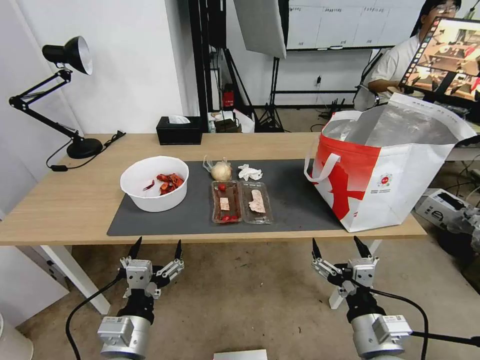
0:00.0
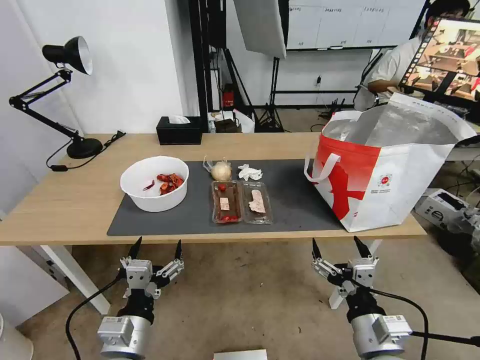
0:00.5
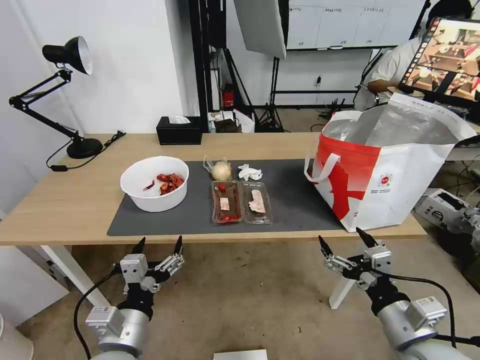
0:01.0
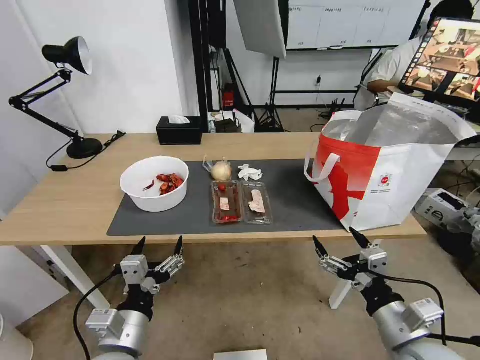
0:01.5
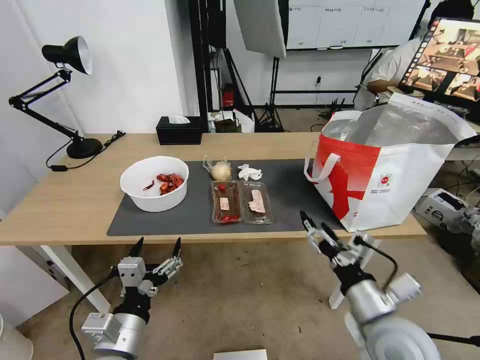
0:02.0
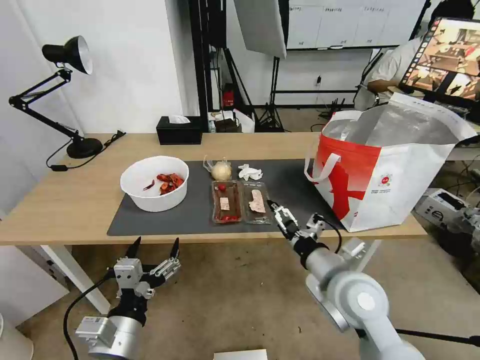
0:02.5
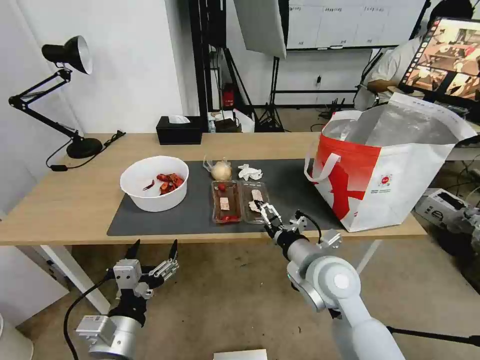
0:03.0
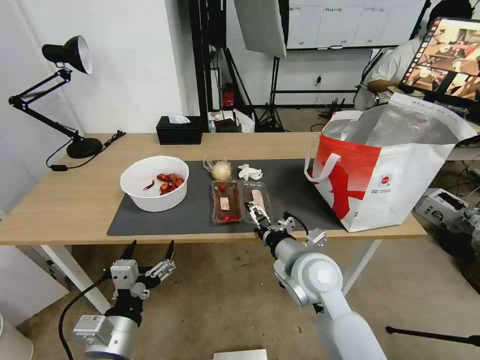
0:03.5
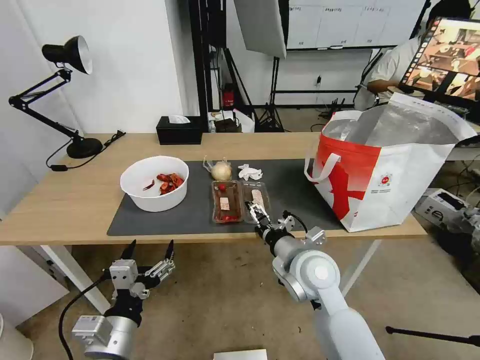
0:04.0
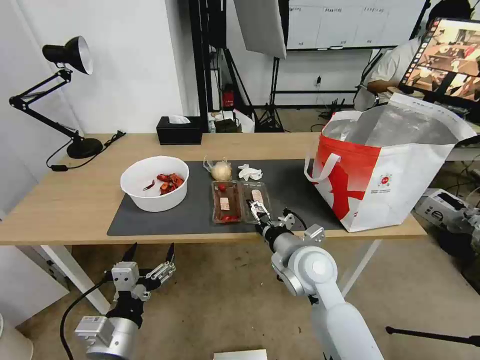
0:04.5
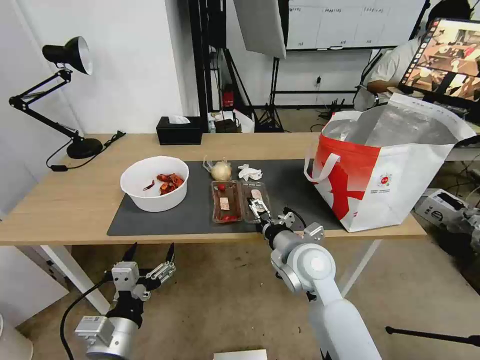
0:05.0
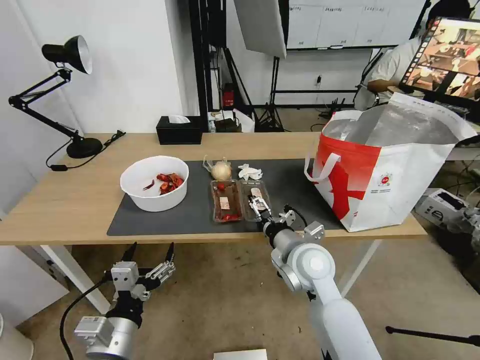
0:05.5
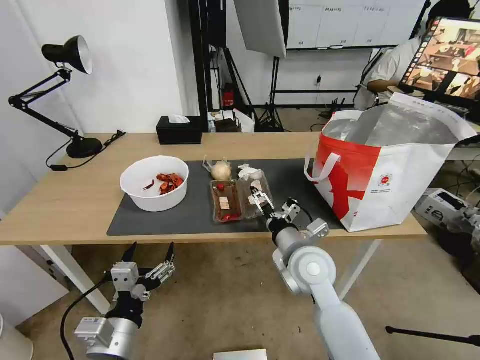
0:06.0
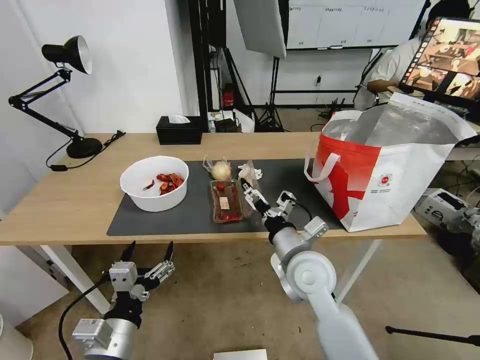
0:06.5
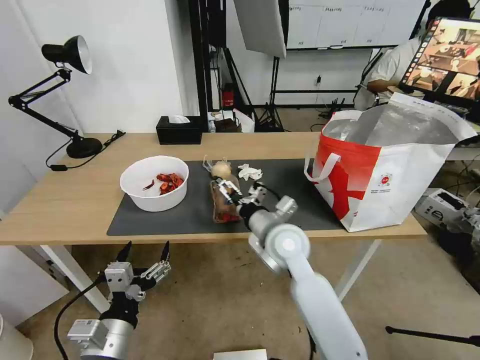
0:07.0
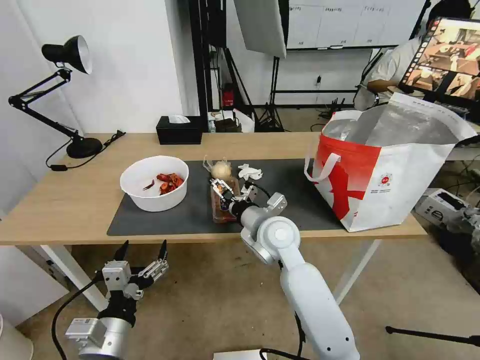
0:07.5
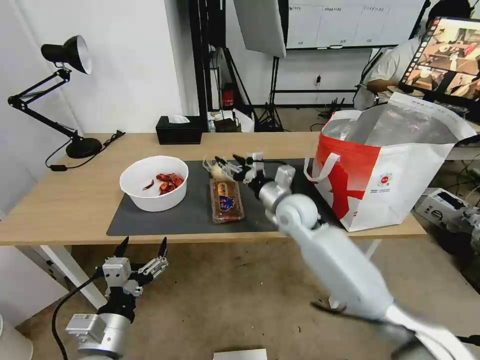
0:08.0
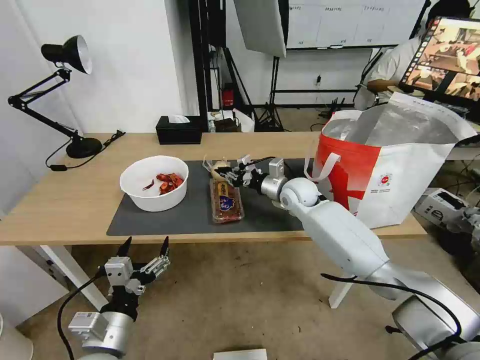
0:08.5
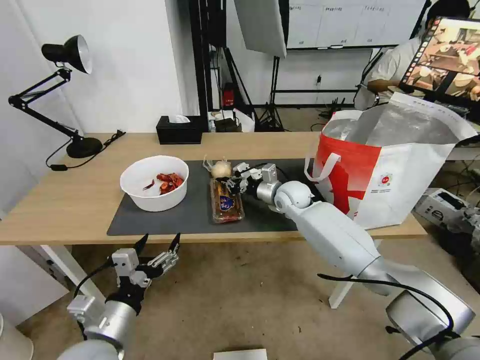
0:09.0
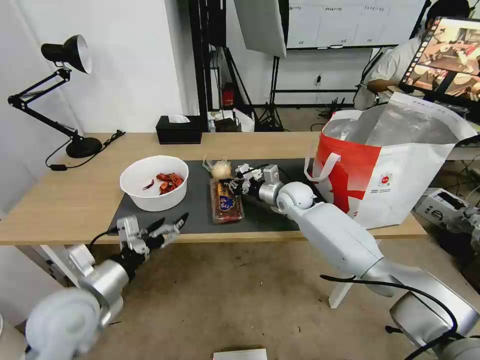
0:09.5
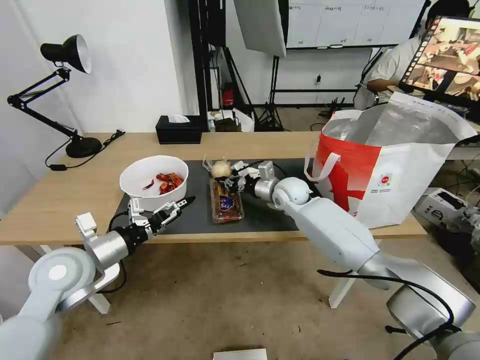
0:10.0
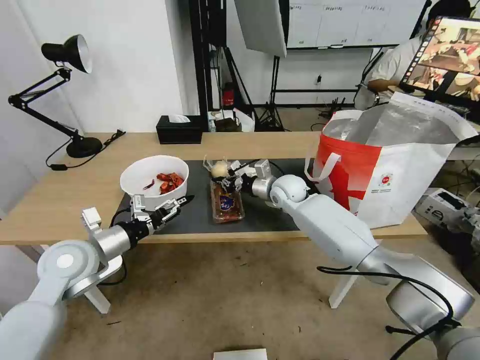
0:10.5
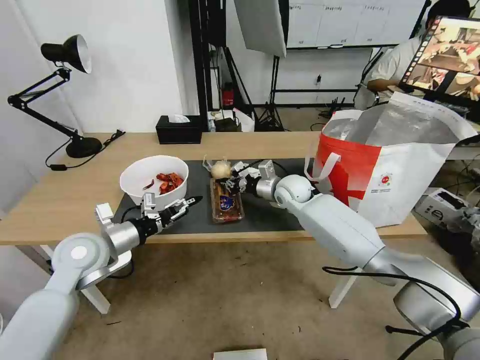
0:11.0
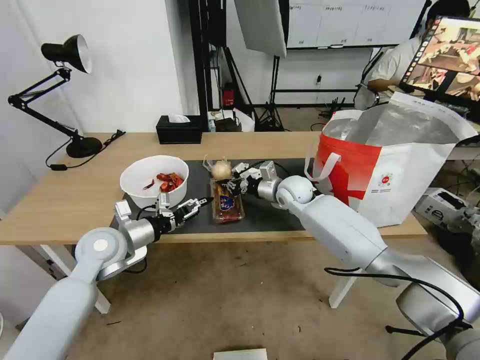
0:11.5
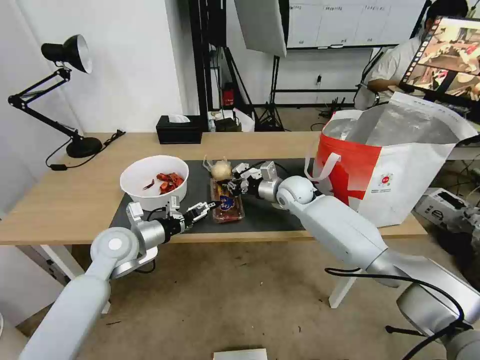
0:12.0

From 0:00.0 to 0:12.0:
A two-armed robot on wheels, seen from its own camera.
Task of the whole recording: Pick up the trash from the table and place it into the takeout bag.
From 0:02.0 to 0:04.0: The right gripper travels forward and to the left by approximately 15 cm.
From 0:04.0 to 0:06.0: There are only small adjustments of the grippers.
From 0:06.0 to 0:08.0: The right gripper goes approximately 15 cm forward.
From 0:08.0 to 0:10.0: The right gripper shifts about 10 cm forward, and closes its fingers. The left gripper goes approximately 20 cm forward, upward and to the left.
From 0:10.0 to 0:12.0: The left gripper is displaced forward by about 10 cm.

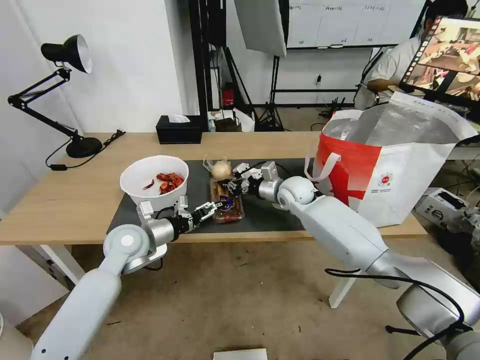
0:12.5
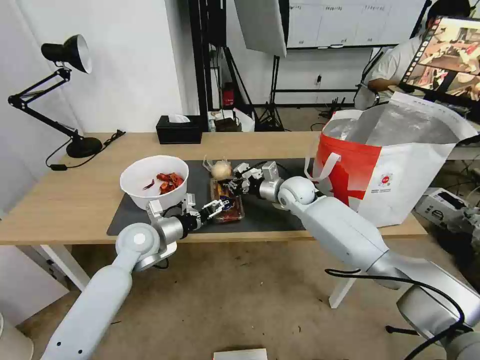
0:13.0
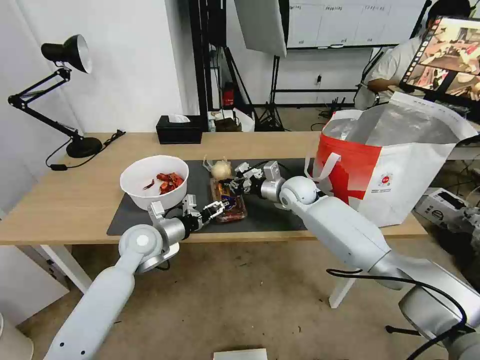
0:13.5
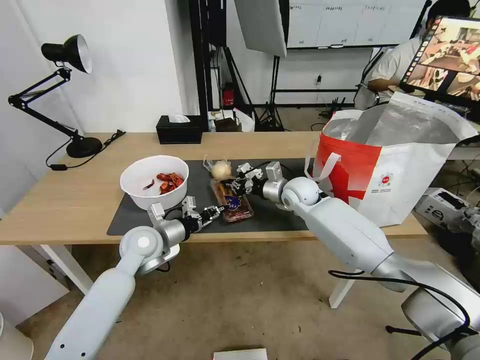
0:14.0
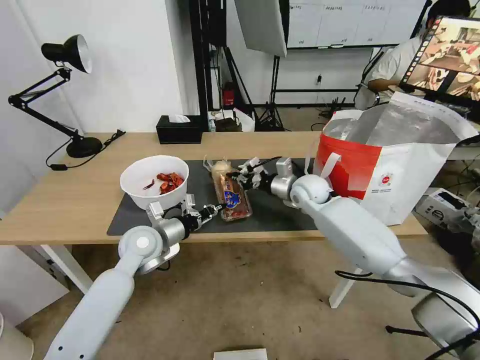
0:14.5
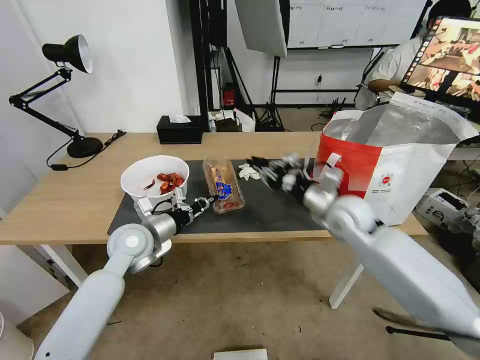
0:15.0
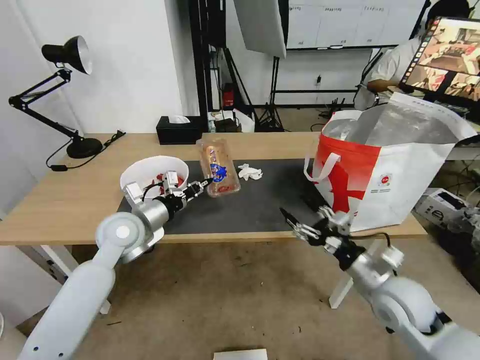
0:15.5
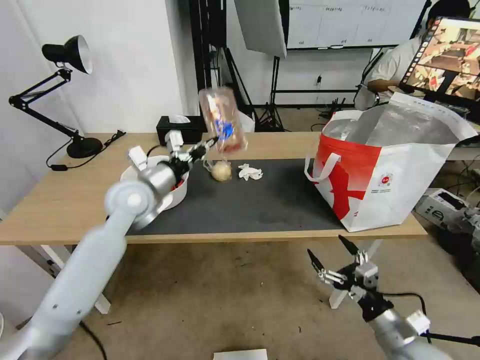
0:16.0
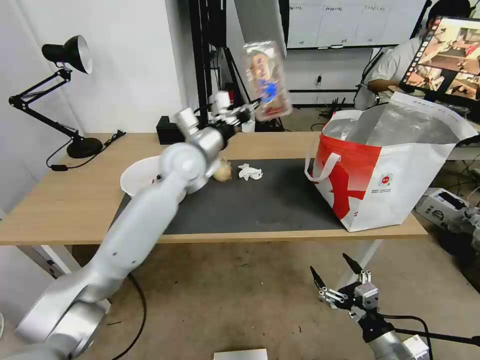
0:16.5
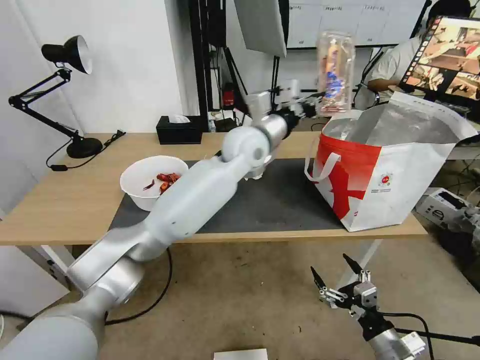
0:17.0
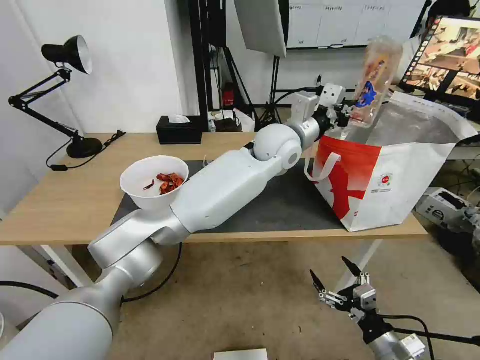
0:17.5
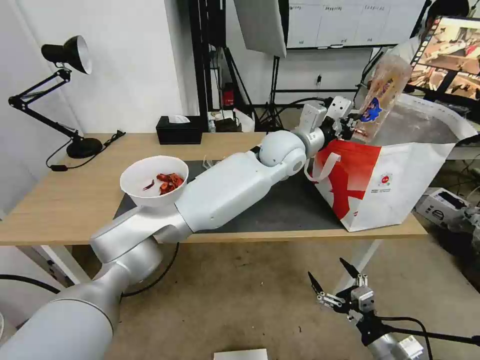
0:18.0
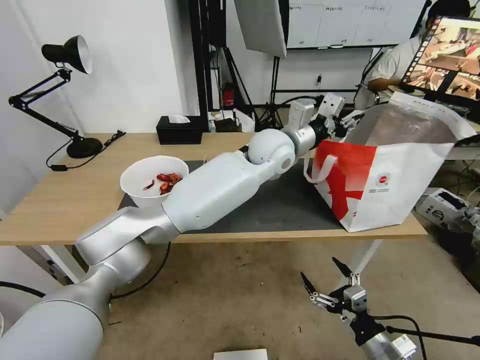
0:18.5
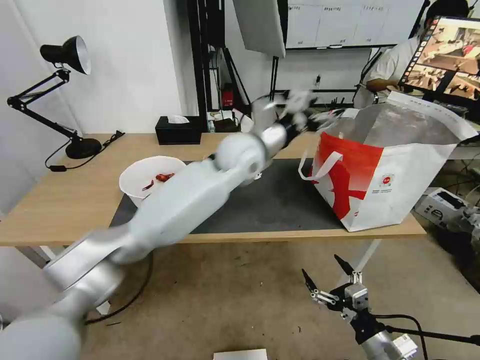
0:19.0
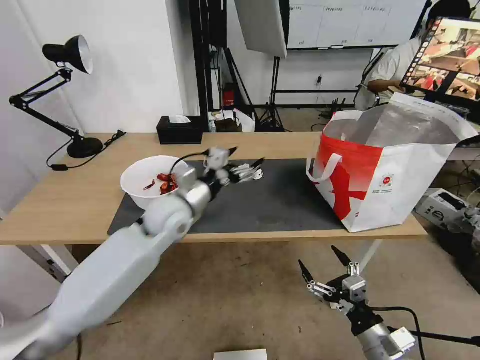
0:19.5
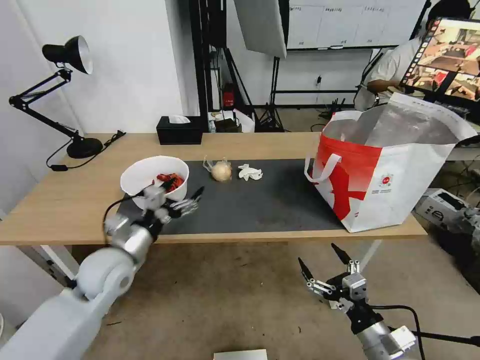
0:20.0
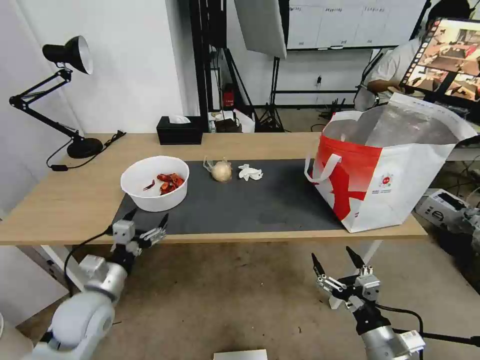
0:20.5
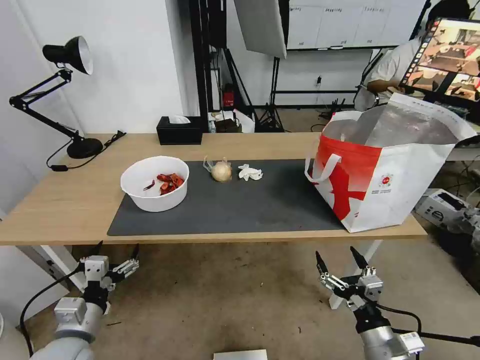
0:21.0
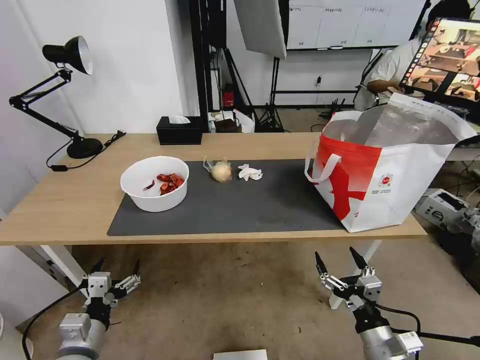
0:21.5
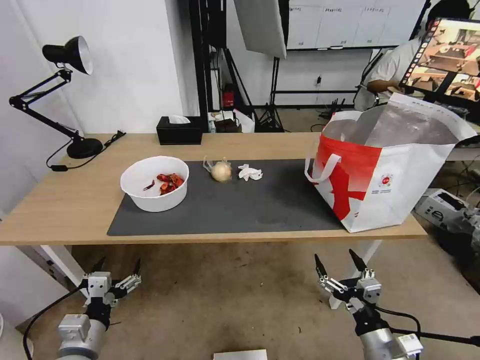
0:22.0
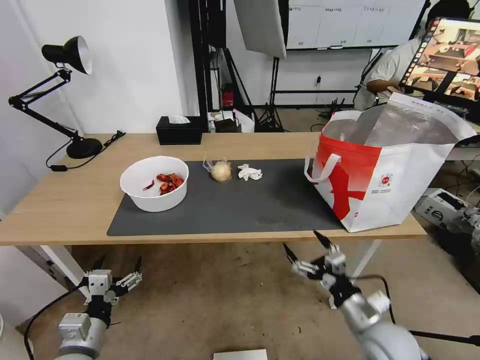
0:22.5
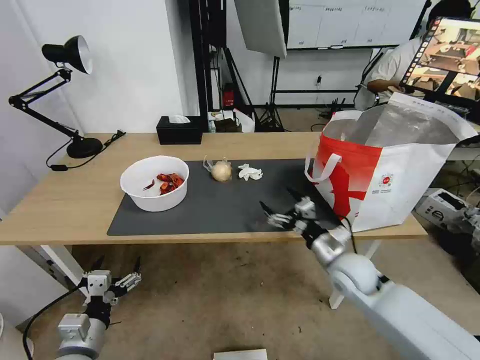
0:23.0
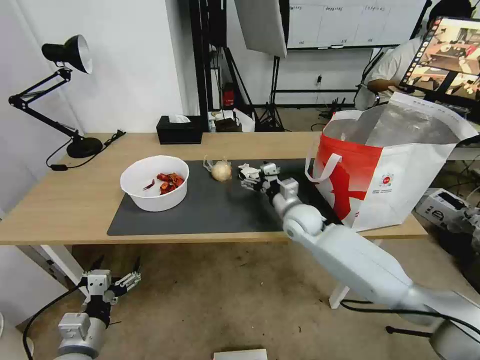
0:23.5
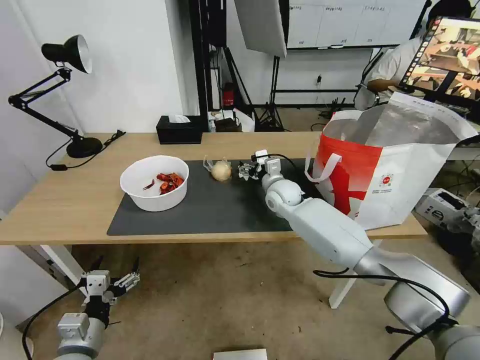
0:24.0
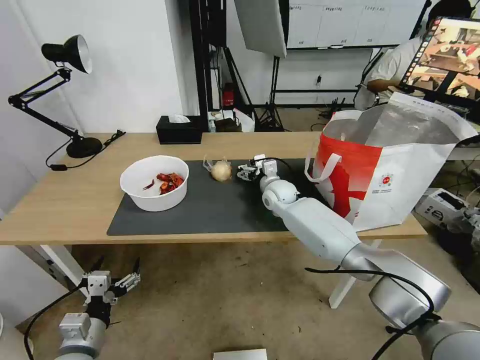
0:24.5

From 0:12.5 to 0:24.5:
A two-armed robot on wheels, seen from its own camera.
Task of the whole recording: Pick up the trash from the table and place it into the takeout bag.
From 0:12.5 to 0:14.5: The left gripper closes.
From 0:14.5 to 0:16.5: The left gripper heads upward, to the right and forward, covering roughly 20 cm; the right gripper is displaced backward by some 40 cm, and opens its fingers.
From 0:16.5 to 0:18.5: The left gripper is displaced to the right by roughly 20 cm.
From 0:18.5 to 0:20.5: The left gripper shifts some 50 cm to the left, backward and downward, and opens.
From 0:20.5 to 0:22.5: The left gripper is displaced backward by approximately 10 cm. The right gripper goes about 5 cm forward.
From 0:22.5 to 0:24.5: The right gripper travels forward and to the left by approximately 40 cm.

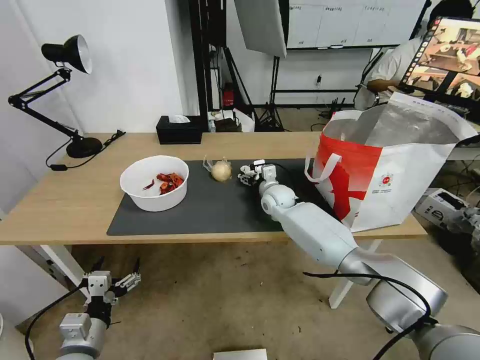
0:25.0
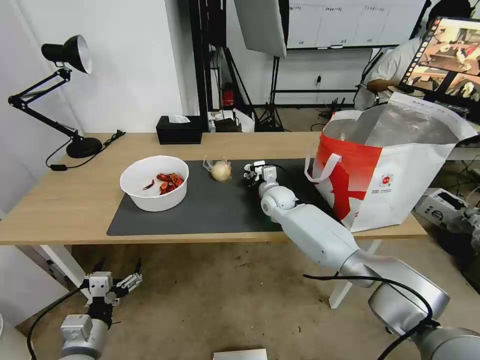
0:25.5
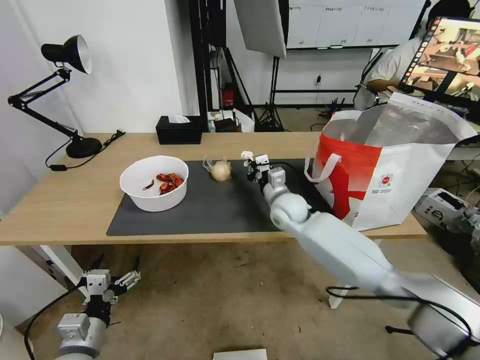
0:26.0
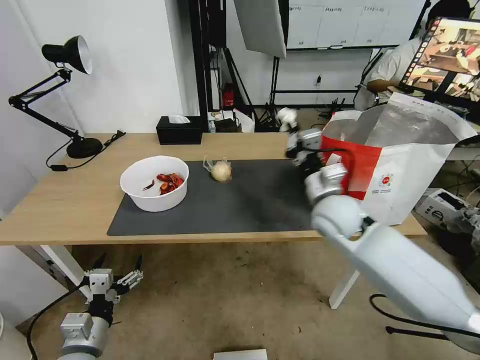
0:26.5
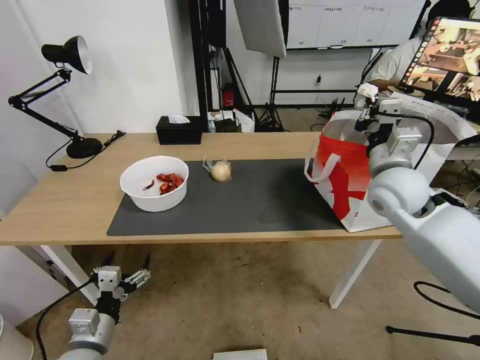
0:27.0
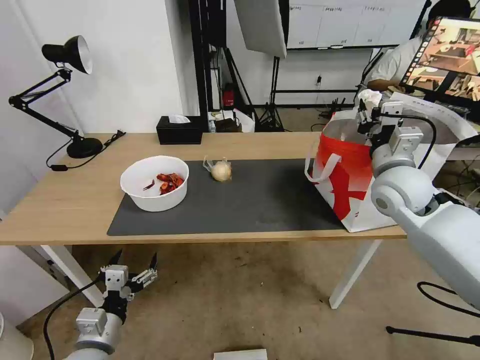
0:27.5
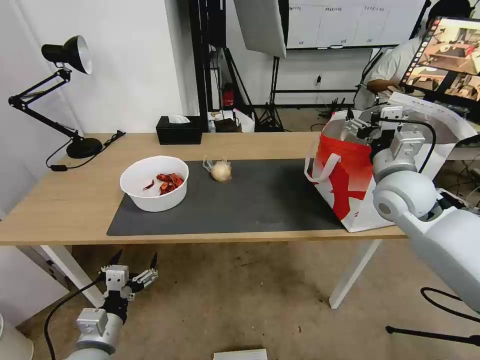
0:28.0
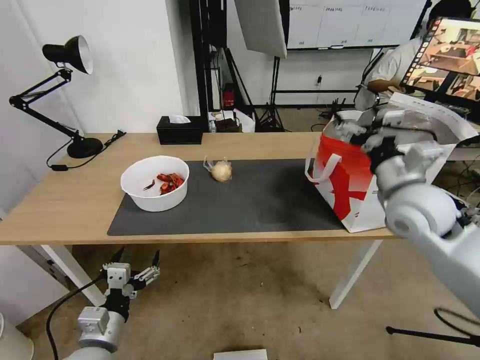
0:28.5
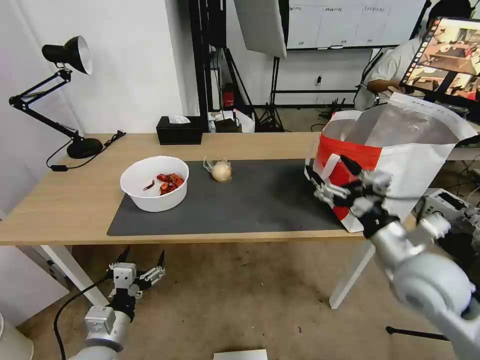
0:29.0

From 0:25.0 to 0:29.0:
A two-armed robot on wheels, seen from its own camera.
Task of the whole recording: Pick up the trash from the table and place it into the takeout bag.
From 0:25.0 to 0:27.0: The right gripper moves upward, to the right and backward, approximately 30 cm, and closes.
From 0:27.0 to 0:29.0: The right gripper is displaced backward and downward by some 15 cm, and opens up.
